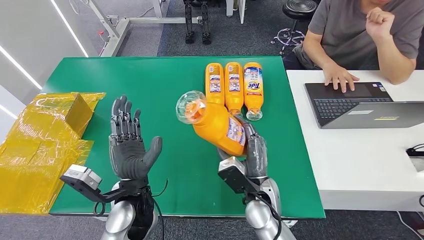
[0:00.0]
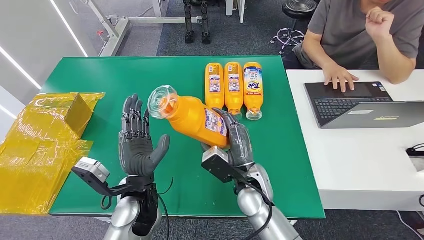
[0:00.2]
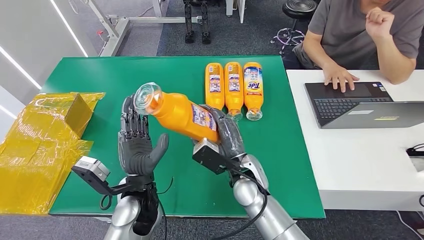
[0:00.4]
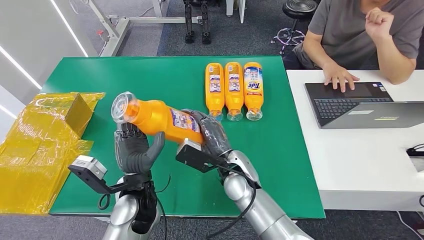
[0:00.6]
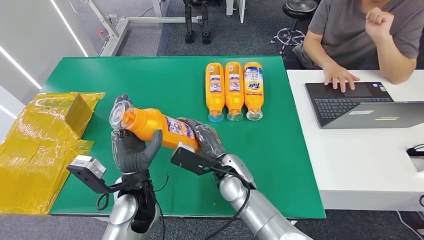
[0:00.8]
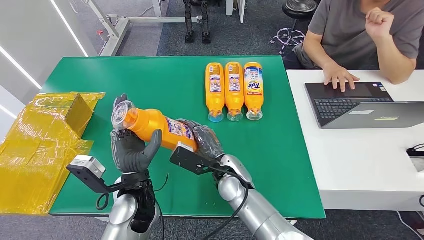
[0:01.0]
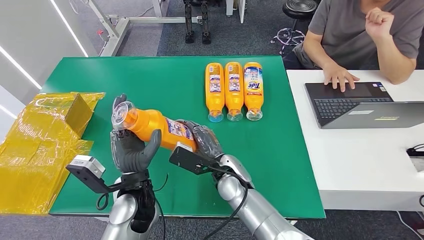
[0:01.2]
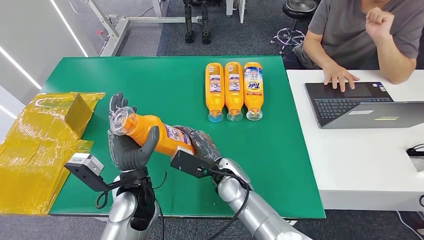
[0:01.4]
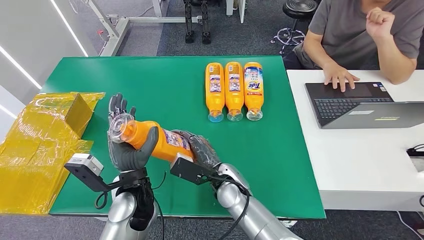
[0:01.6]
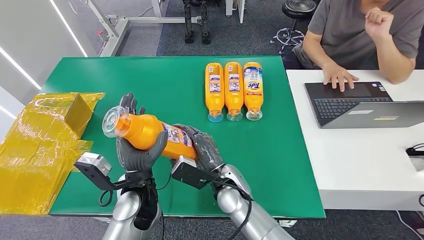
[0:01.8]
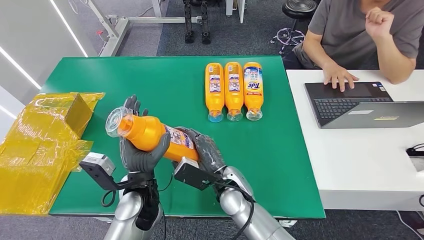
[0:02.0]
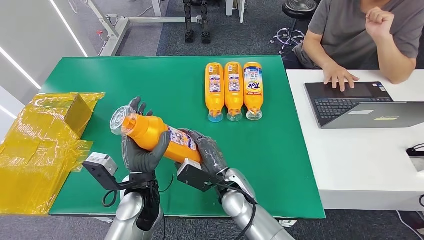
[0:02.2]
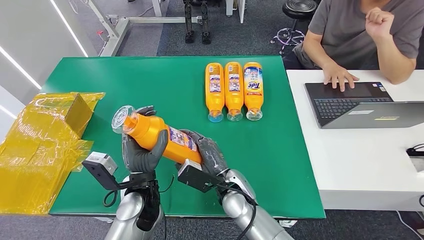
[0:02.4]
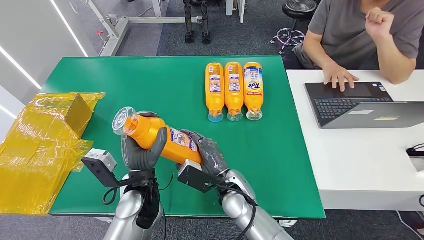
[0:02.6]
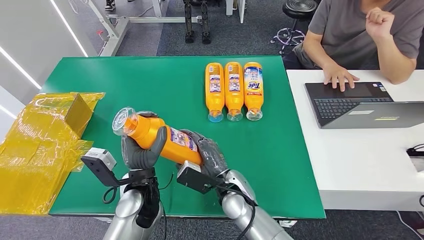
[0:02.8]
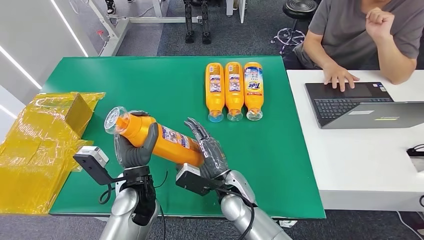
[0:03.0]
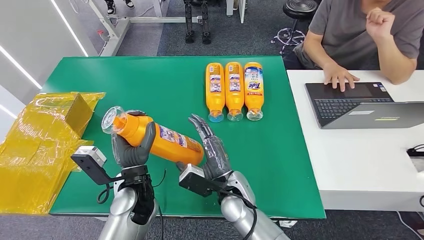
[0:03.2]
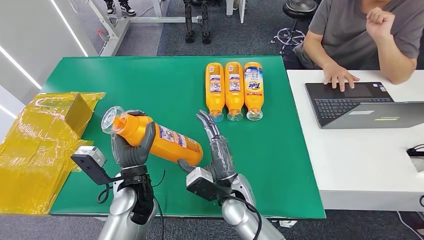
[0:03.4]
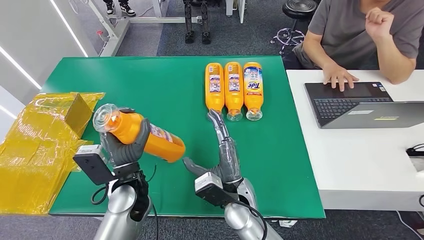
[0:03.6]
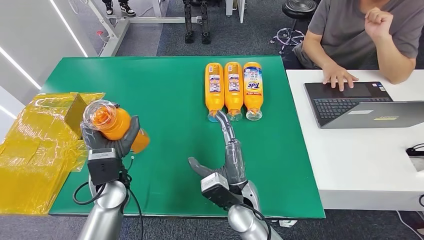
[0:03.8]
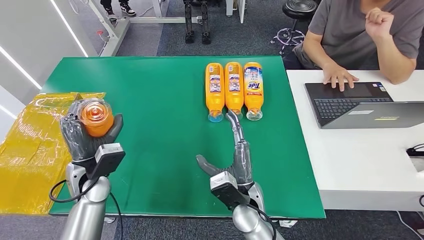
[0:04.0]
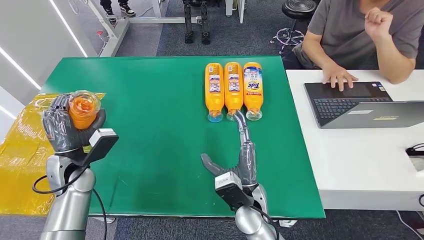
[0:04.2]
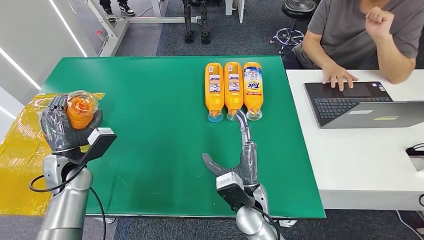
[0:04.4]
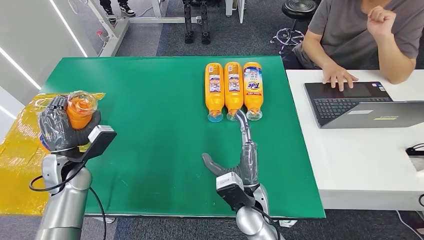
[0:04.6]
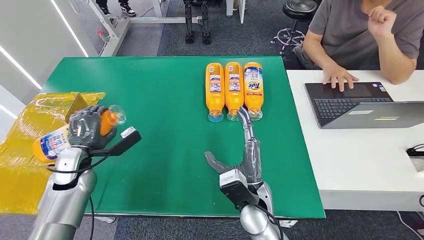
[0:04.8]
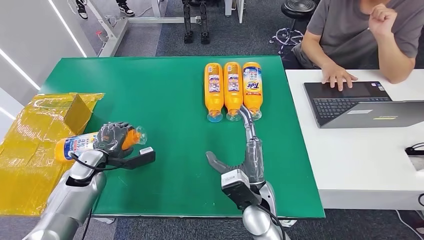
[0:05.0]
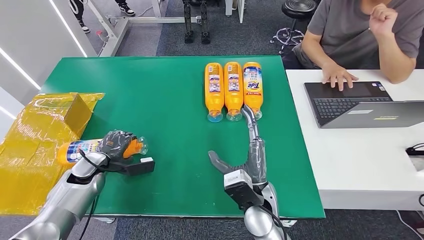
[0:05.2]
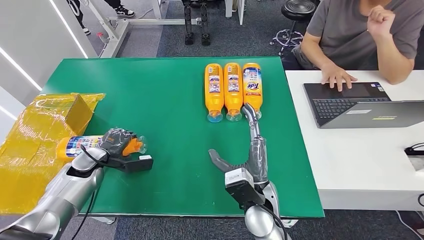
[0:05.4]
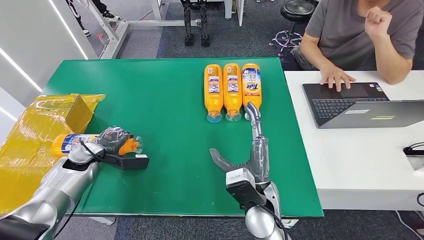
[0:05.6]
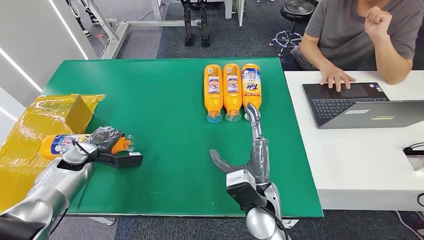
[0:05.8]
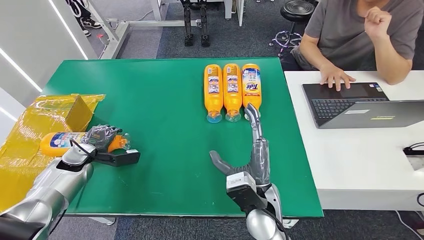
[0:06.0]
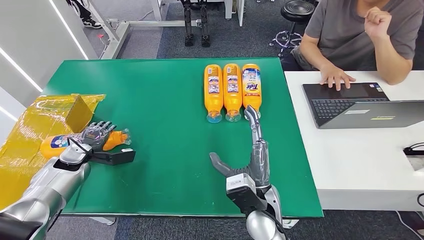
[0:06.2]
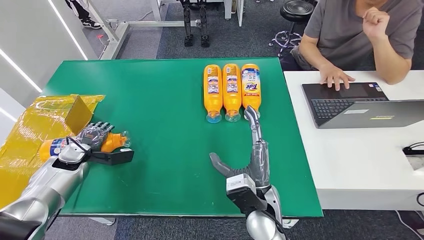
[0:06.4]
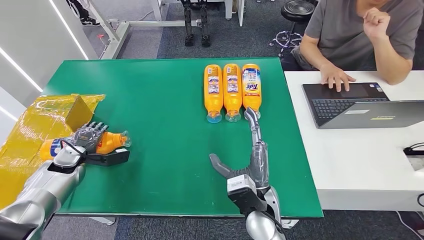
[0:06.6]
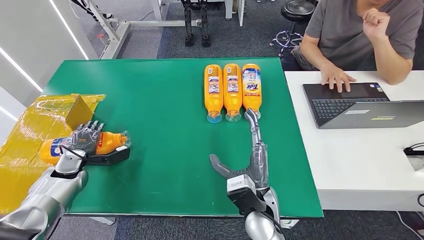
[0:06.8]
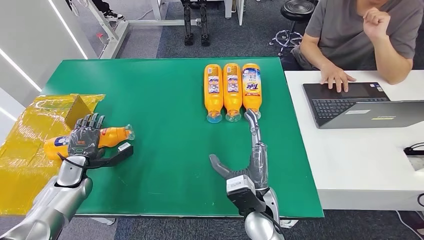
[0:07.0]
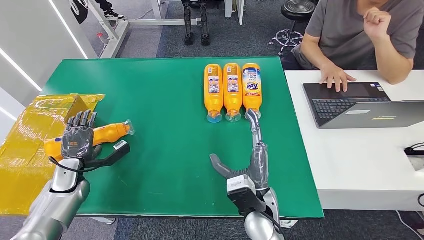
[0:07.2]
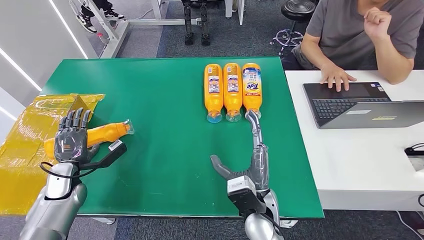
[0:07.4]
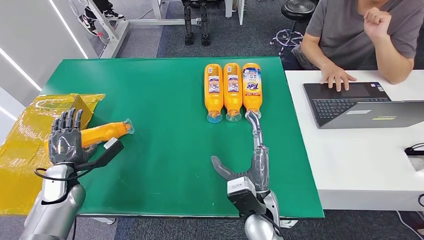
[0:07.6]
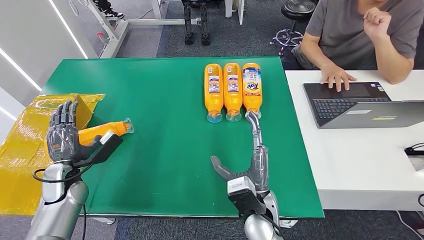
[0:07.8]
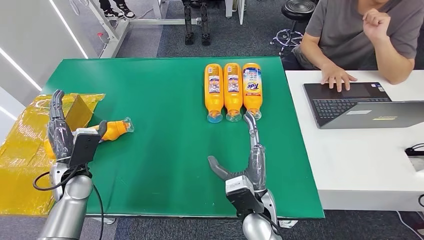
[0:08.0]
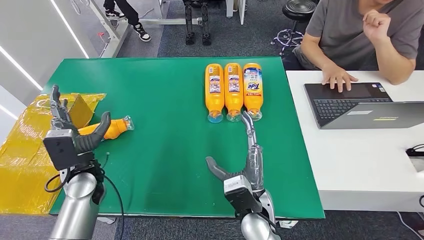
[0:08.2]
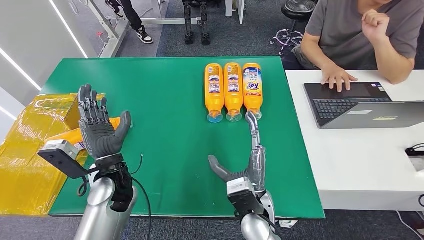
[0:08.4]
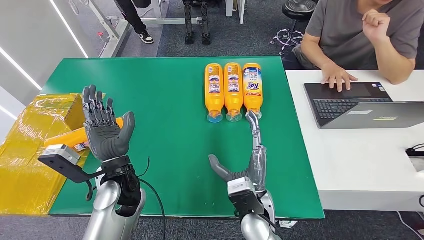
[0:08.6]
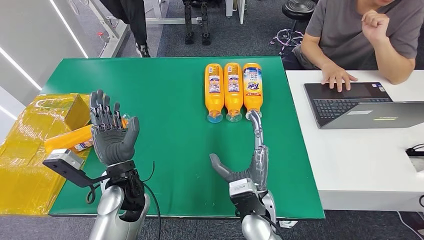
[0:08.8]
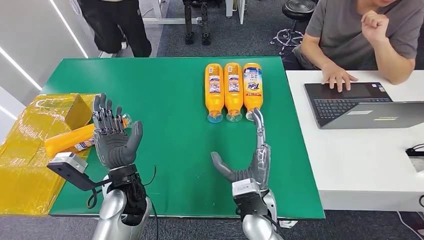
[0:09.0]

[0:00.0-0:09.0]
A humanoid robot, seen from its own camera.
Step, 0:00.0 to 0:09.0: Turn the bottle to the front side.
0:00.0 to 0:01.6: The right hand shifts roughly 5 cm to the left.
0:01.6 to 0:03.0: There are only small adjustments of the hands.
0:03.0 to 0:04.4: The left hand moves to the left, roughly 20 cm.
0:06.0 to 0:07.6: The left hand heads backward, covering approximately 5 cm.
0:07.6 to 0:09.0: The left hand moves to the right, approximately 20 cm.
